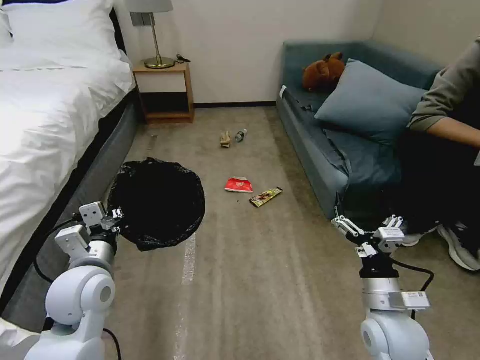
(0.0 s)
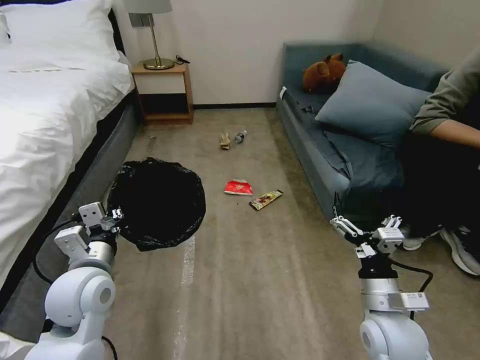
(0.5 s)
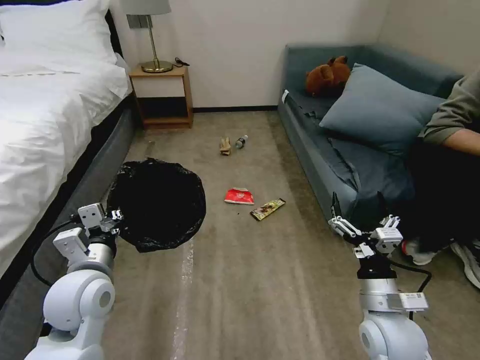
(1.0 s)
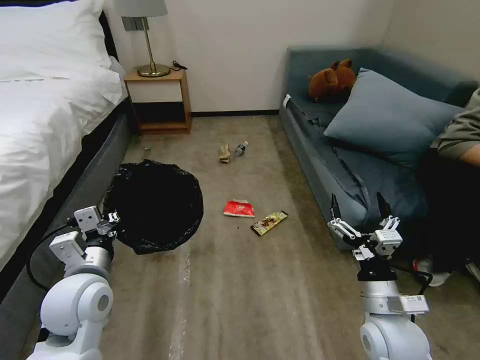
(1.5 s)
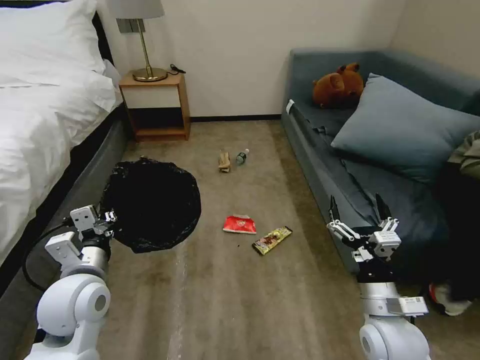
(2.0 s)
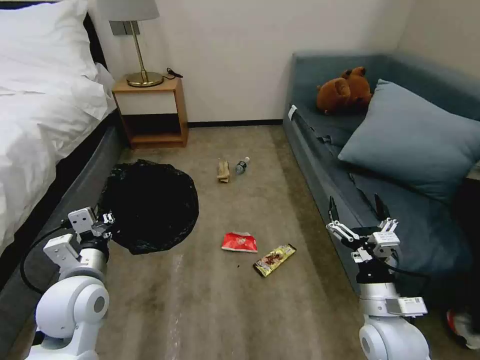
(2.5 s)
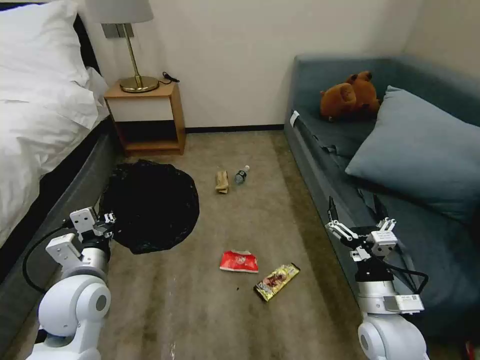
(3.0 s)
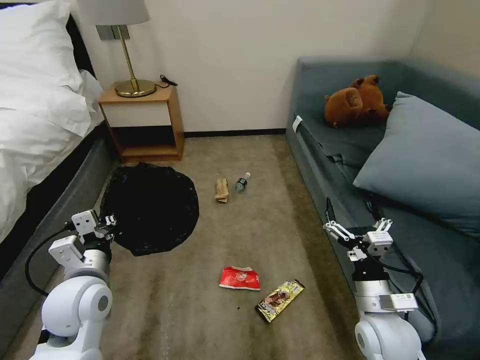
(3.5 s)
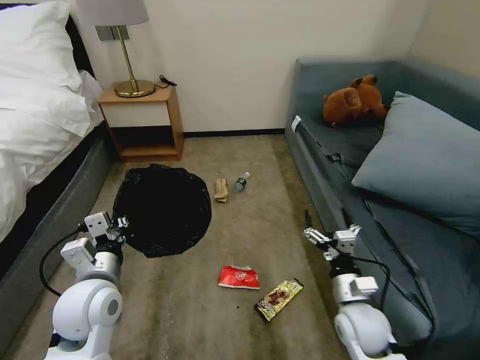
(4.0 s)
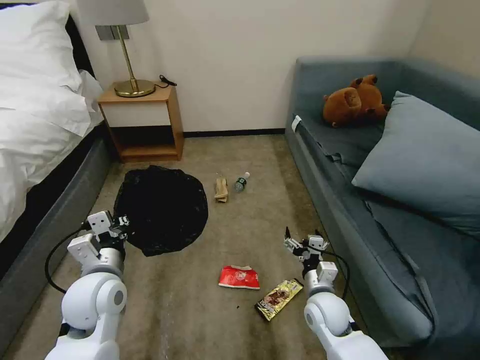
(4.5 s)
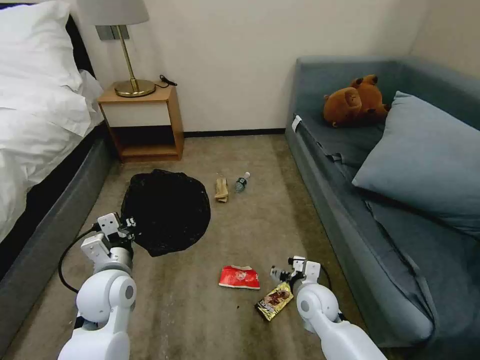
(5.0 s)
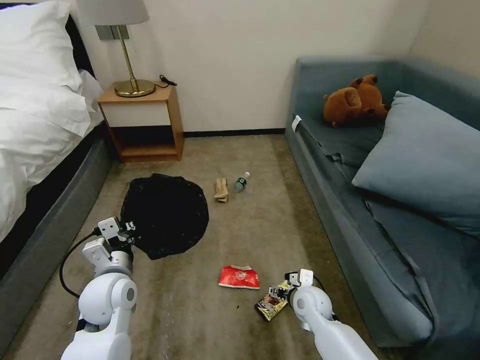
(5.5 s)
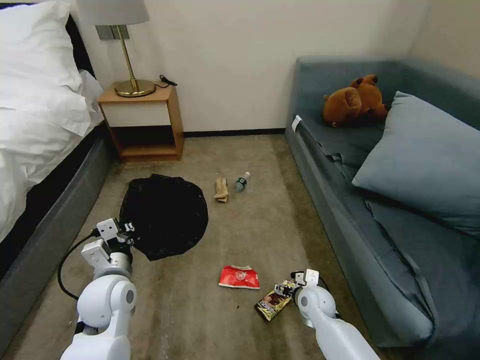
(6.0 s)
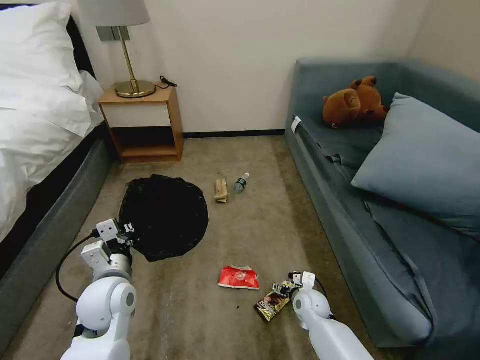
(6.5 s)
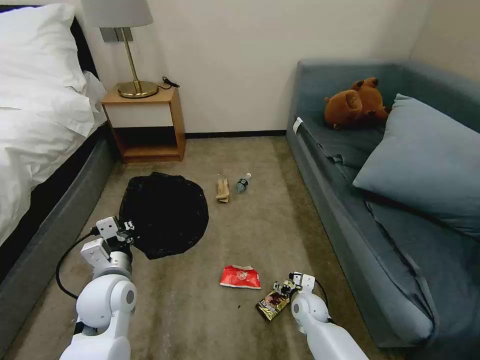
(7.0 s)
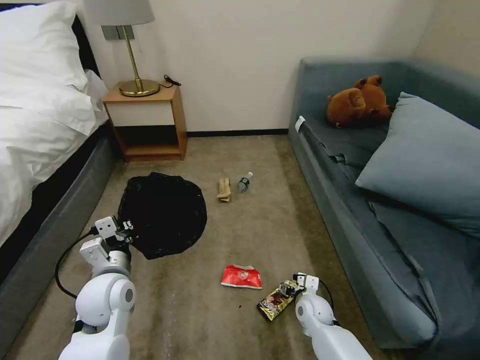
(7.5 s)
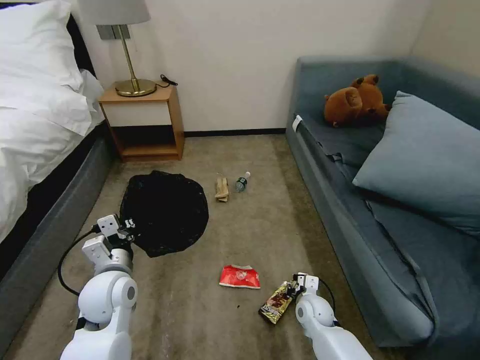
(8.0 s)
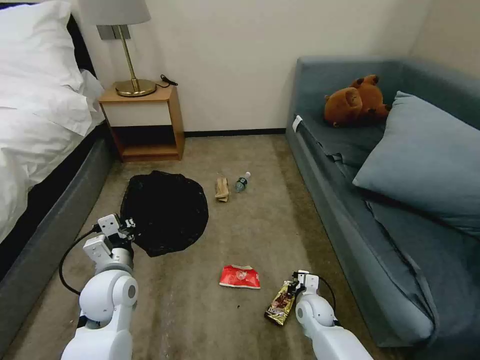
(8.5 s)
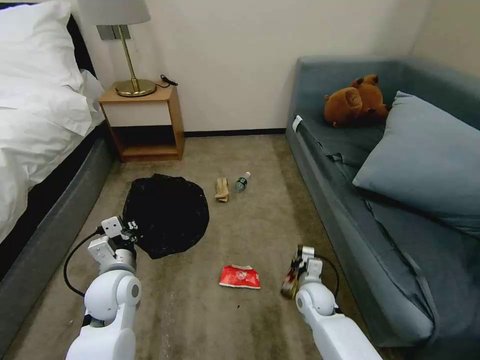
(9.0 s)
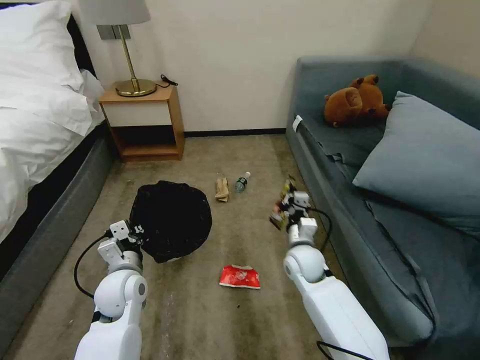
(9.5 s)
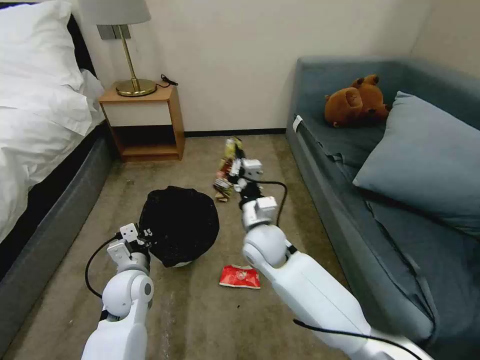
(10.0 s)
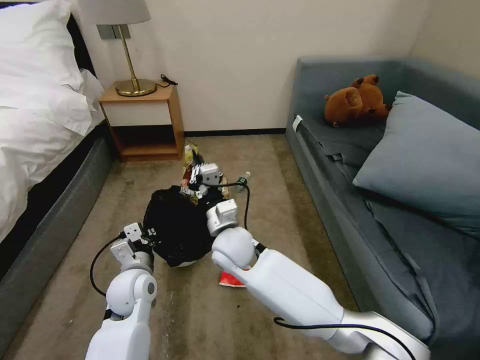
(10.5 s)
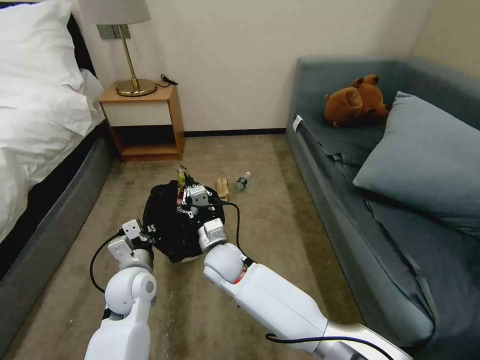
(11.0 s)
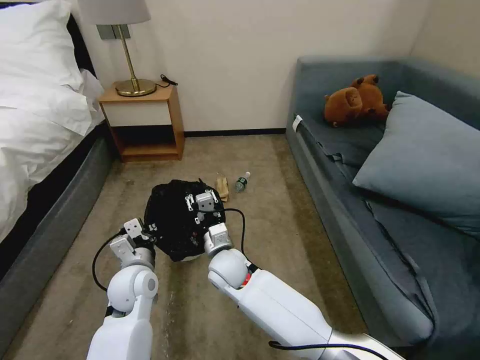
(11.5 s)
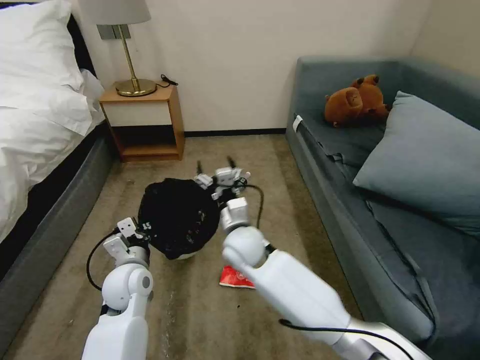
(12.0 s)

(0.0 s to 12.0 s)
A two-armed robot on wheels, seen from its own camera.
Task of the whole recording: Pick up the trash bin, then pick up the garbage on the floor and place it into the trash bin.
2.0 s - 4.0 s: The right gripper goes approximately 5 cm downward.
4.0 s - 6.0 s: The left gripper ends up some 5 cm from where it was; the right gripper heads downward and forward, covering some 15 cm.
6.0 s - 8.0 s: The right gripper closes up.
8.0 s - 10.0 s: The left gripper ends up some 5 cm from where it was. Meanwhile the right gripper heads upward and to the left, covering roughly 30 cm, and closes.
10.0 s - 12.0 s: The right gripper opens up.

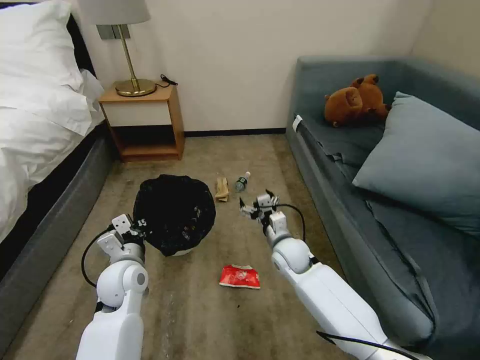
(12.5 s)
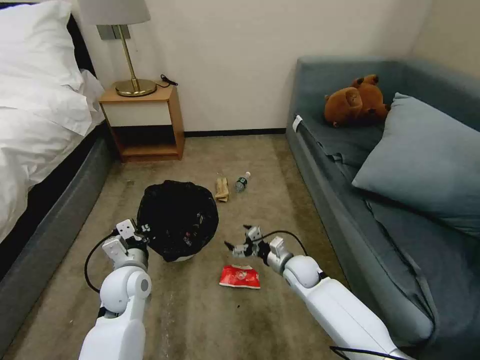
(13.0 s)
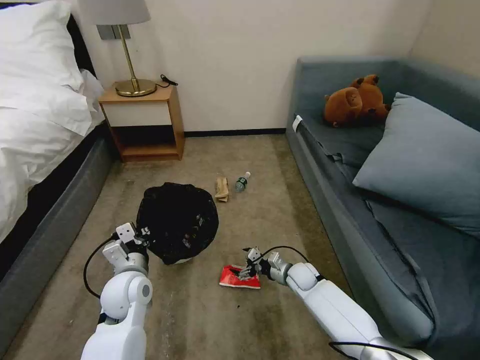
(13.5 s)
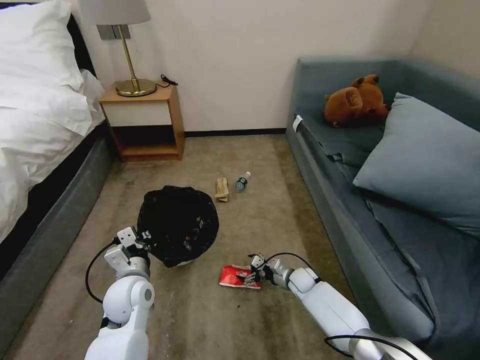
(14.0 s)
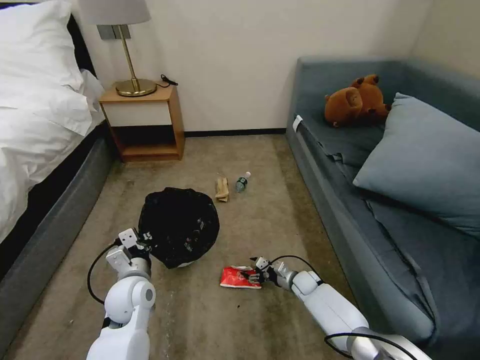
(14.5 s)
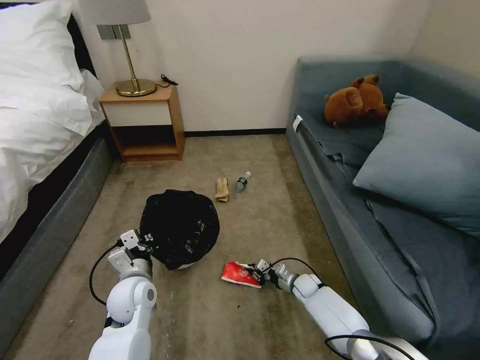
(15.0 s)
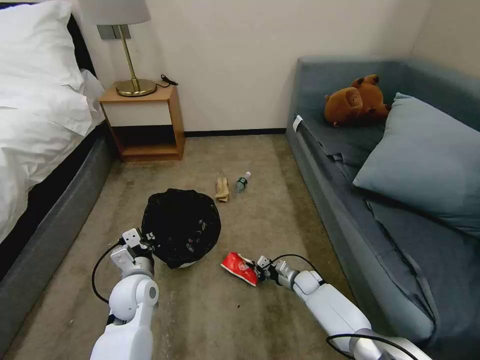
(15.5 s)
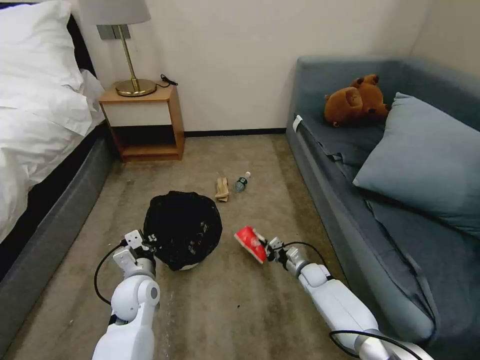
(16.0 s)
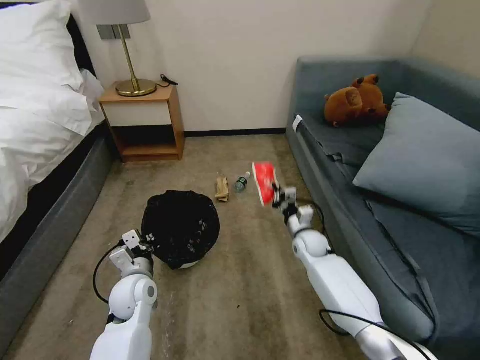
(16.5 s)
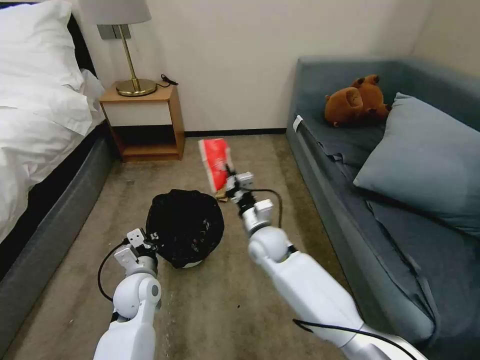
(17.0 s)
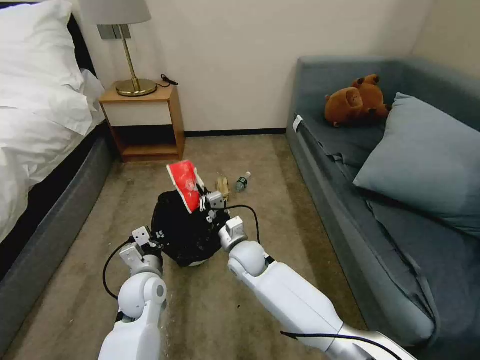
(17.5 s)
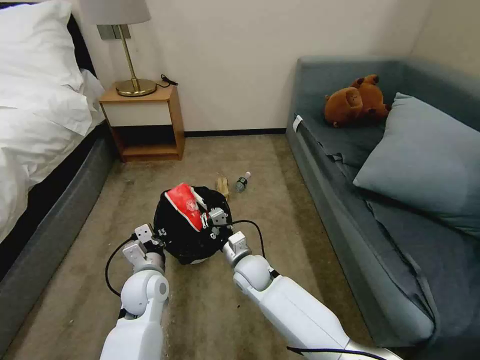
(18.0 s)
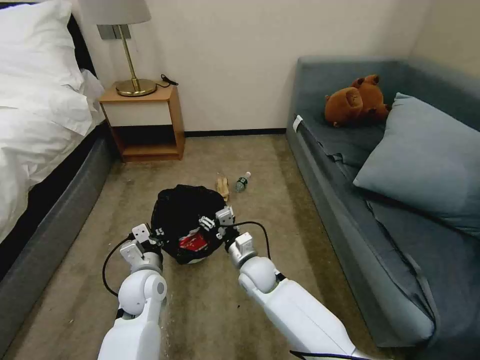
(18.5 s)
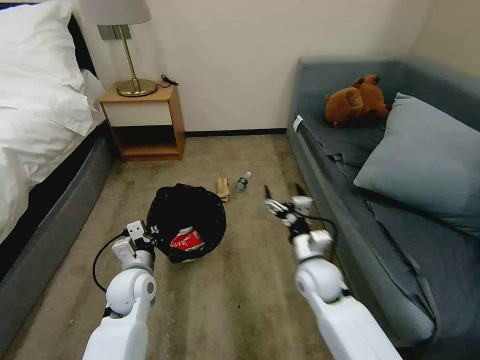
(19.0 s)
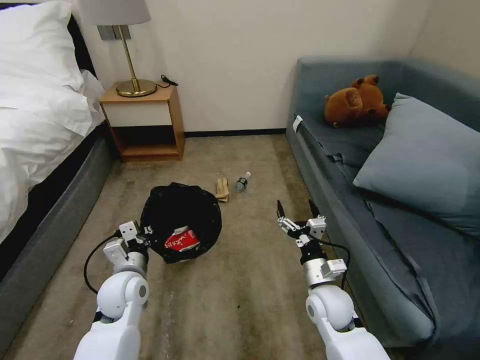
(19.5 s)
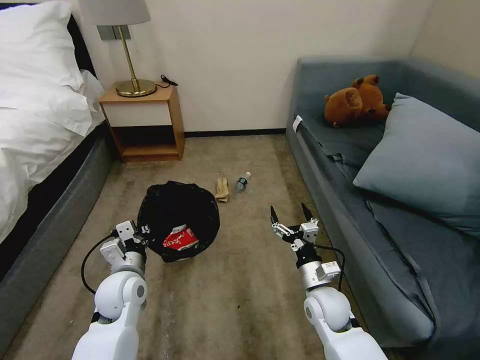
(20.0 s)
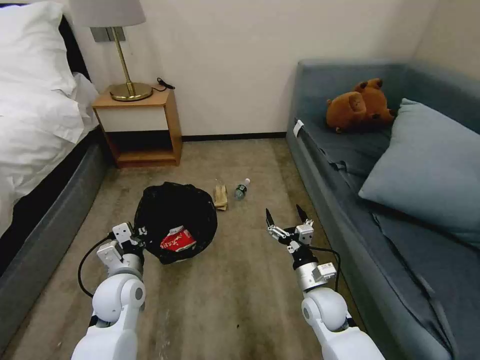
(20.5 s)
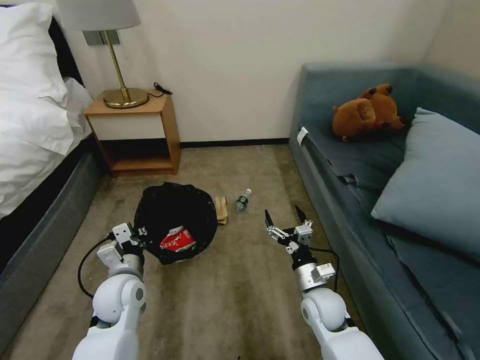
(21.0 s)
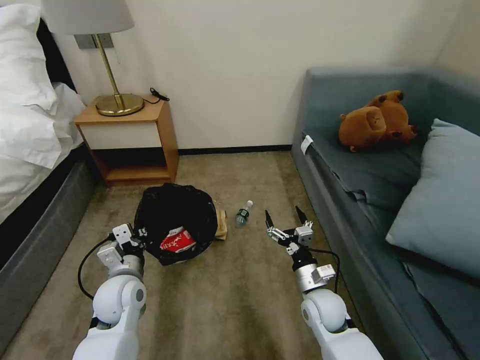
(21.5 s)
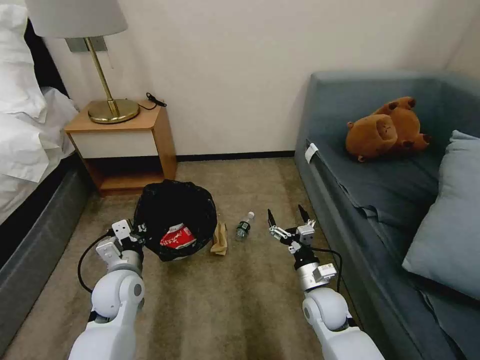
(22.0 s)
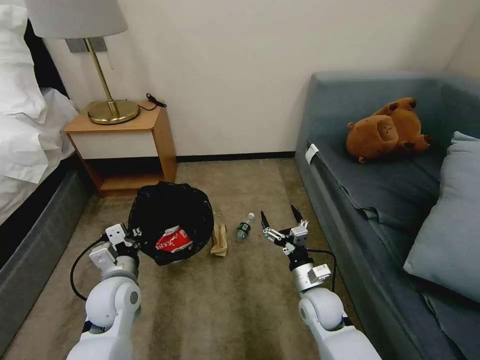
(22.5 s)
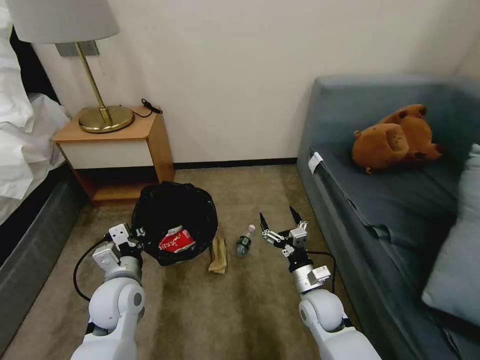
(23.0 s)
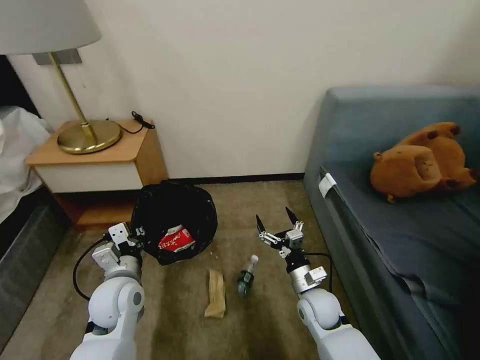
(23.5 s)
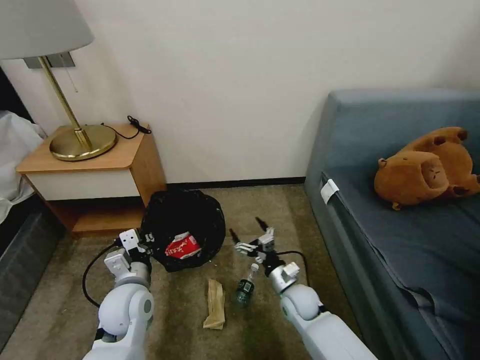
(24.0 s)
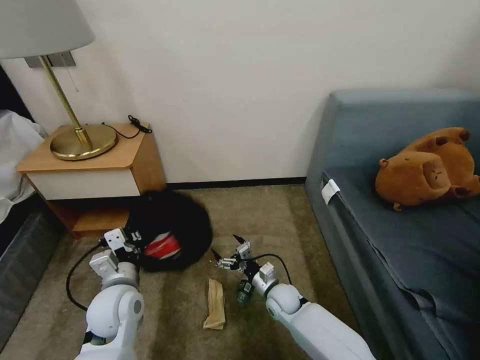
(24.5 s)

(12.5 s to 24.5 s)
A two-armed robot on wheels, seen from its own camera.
Task of the whole recording: Pick up the trash bin, then pick up the garbage on the floor and place it into the trash bin.
12.5 s - 14.5 s: The right gripper moves downward and to the right, roughly 20 cm.
14.5 s - 16.5 s: The right gripper moves upward, about 15 cm, and closes.
16.5 s - 18.5 s: The right gripper moves to the left and backward, roughly 20 cm, and opens.
18.5 s - 20.5 s: The right gripper goes approximately 15 cm to the right and backward.
22.5 s - 24.5 s: The right gripper moves downward and to the left, some 10 cm.

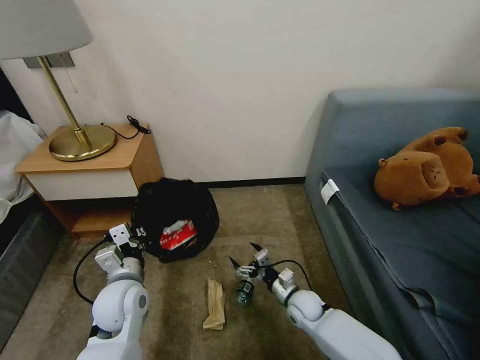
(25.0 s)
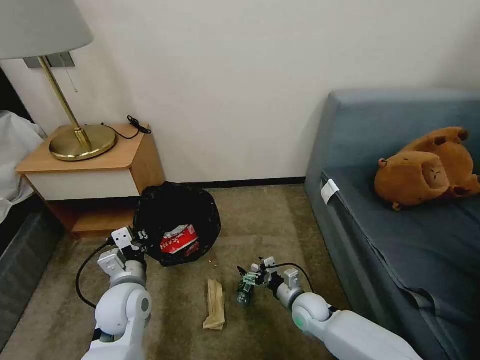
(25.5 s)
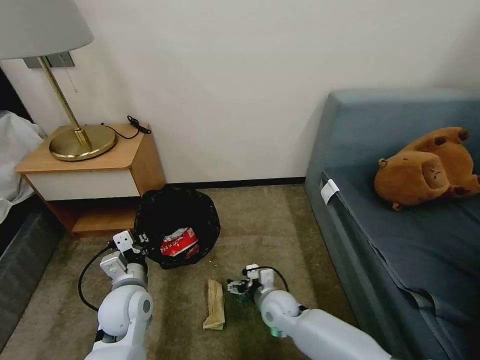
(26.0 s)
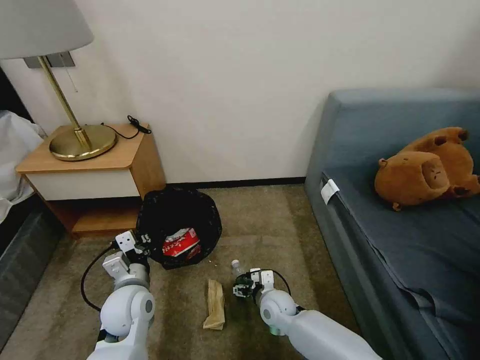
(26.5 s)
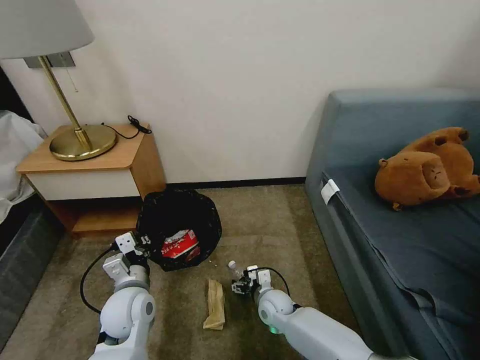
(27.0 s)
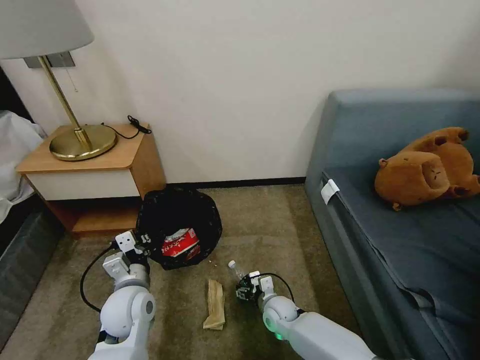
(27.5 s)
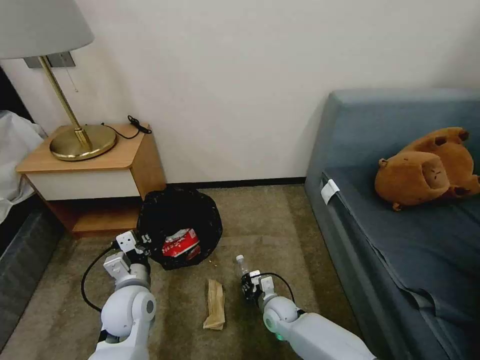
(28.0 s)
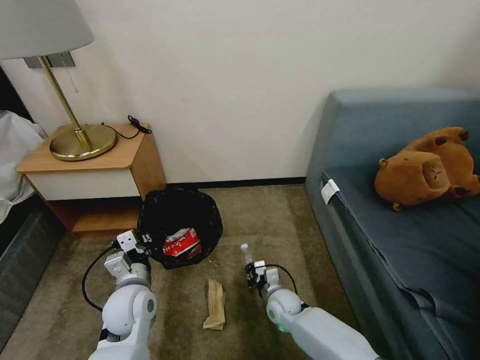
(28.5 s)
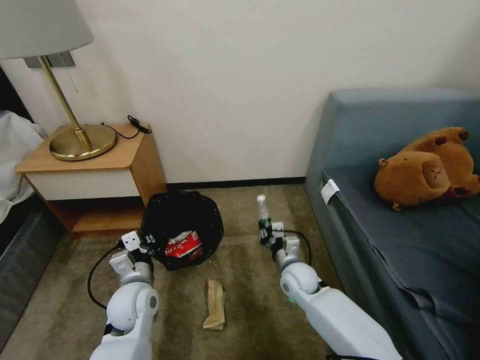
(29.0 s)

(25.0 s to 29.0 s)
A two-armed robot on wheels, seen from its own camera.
Task of the whole recording: Pick up the trash bin, then pick up the garbage on the floor and place it into the trash bin.
25.0 s - 27.0 s: The right gripper moves to the left, approximately 10 cm.
27.0 s - 29.0 s: The right gripper goes some 10 cm upward and to the right, and closes.
